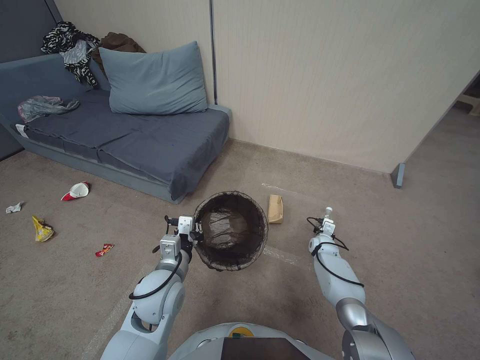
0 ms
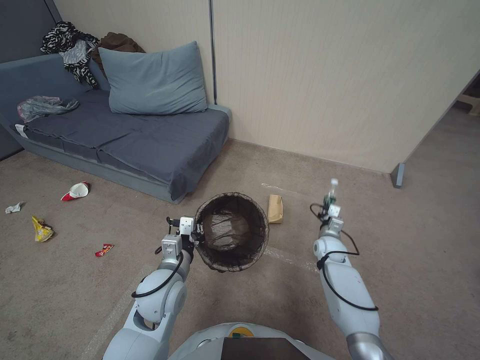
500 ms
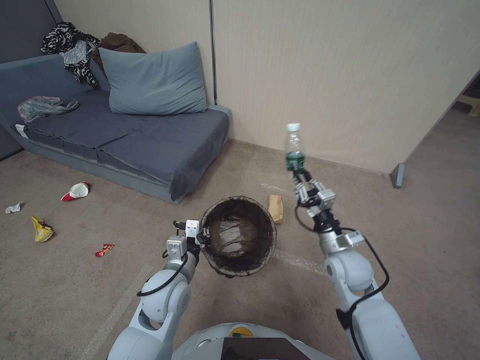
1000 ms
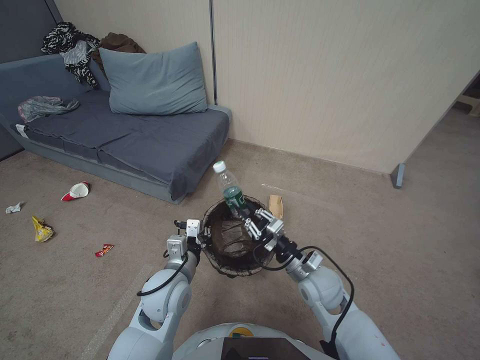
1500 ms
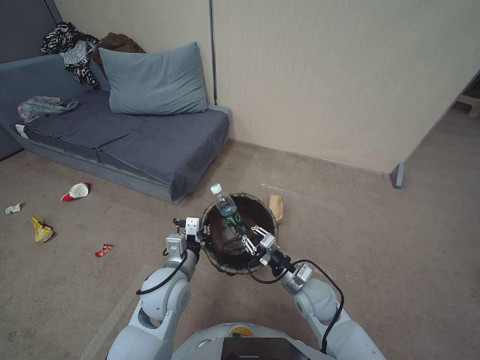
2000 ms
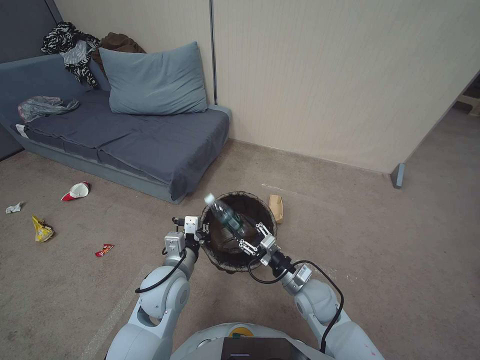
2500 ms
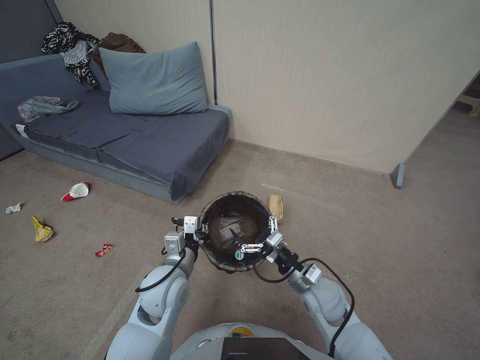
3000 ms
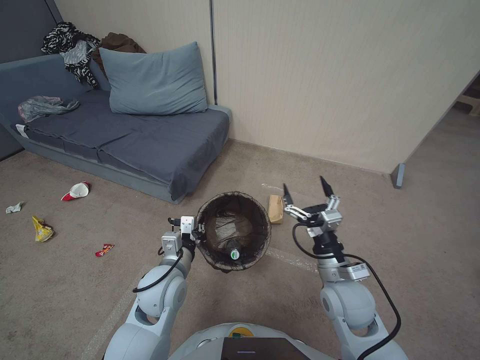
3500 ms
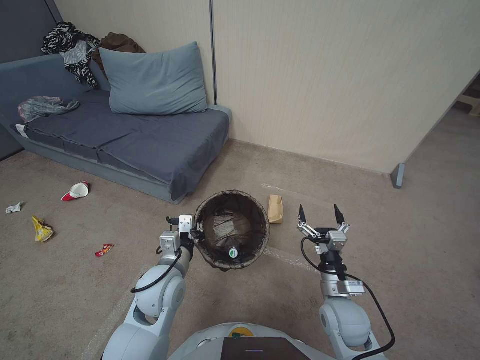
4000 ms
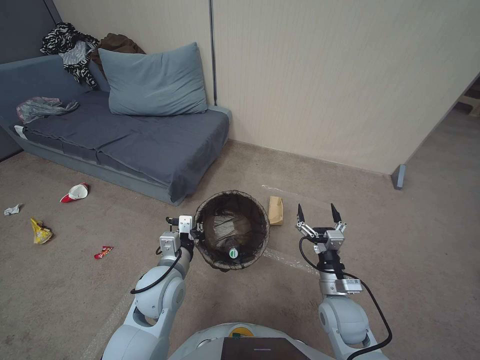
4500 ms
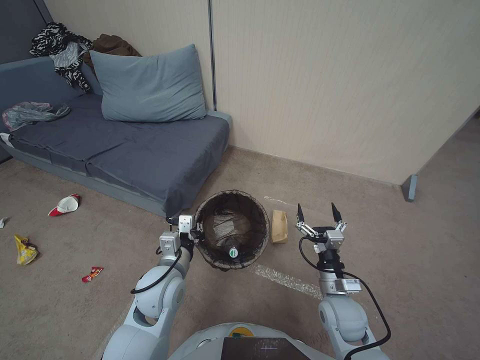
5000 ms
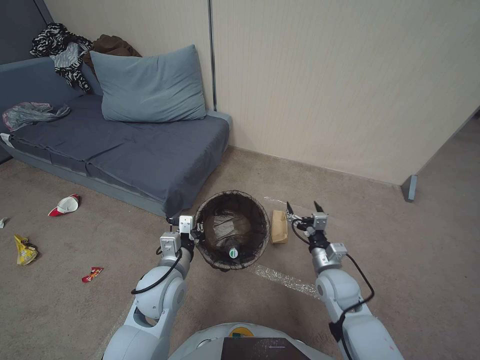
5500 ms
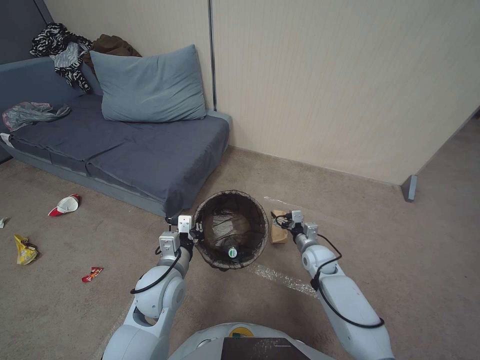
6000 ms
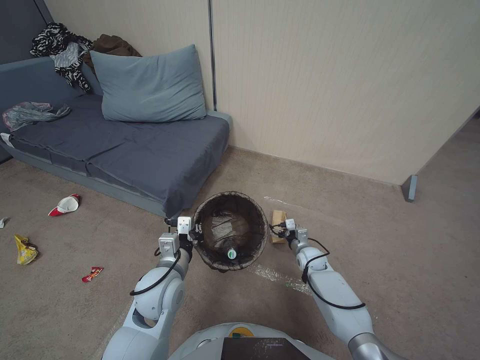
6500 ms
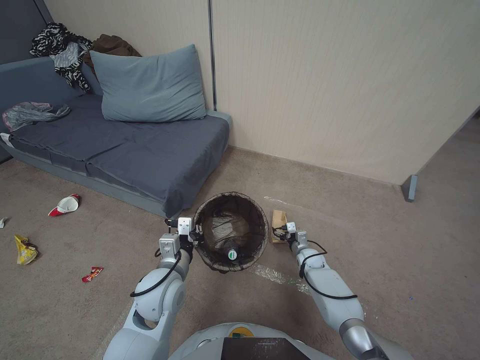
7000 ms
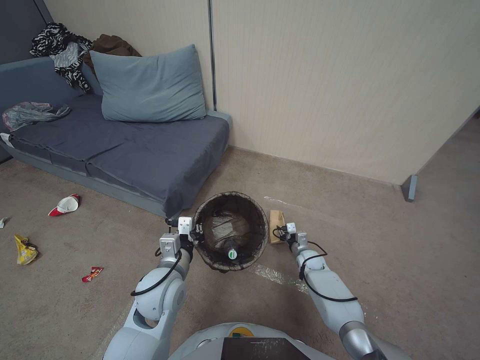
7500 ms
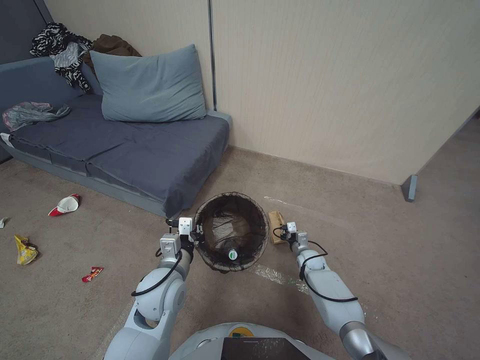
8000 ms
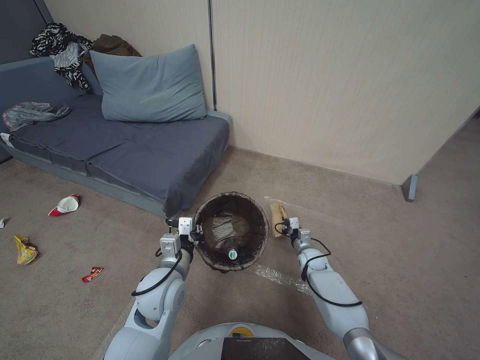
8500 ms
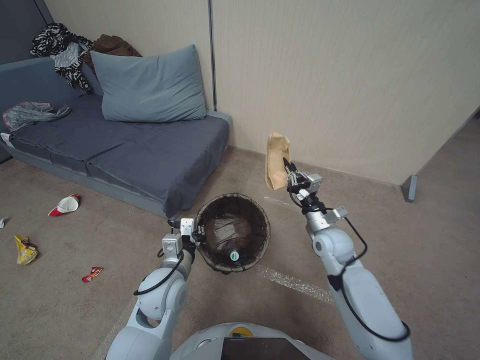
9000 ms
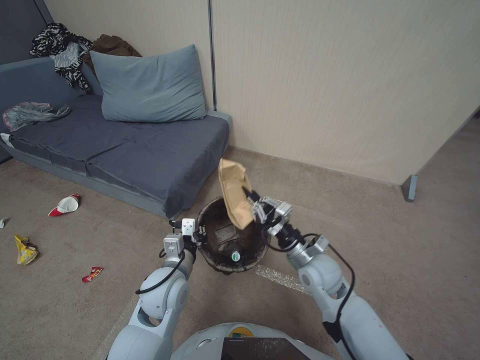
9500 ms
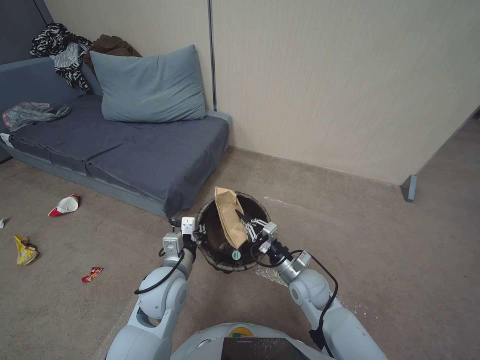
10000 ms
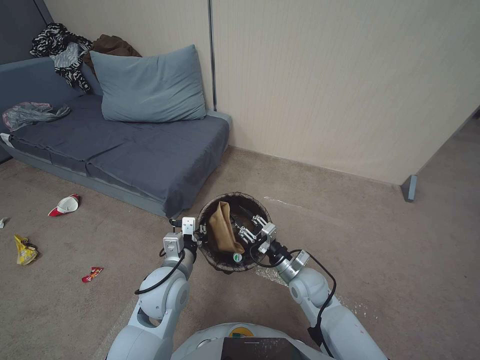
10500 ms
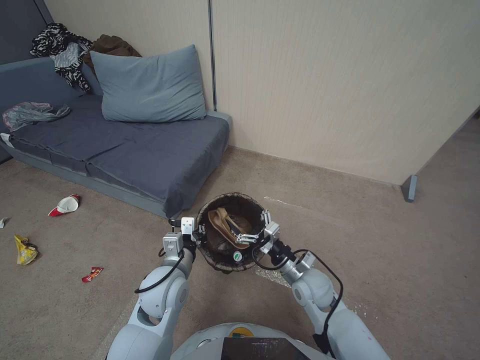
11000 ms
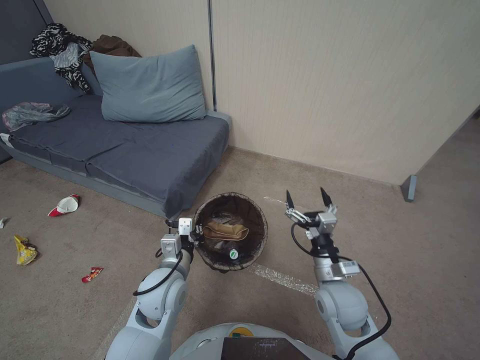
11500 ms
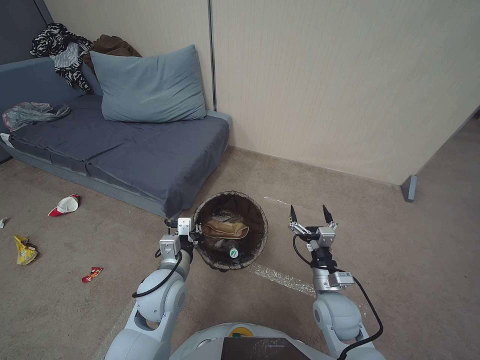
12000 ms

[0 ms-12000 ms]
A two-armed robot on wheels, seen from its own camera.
Task of the whole recording: Pick up the trash bin, then pick up the garbage from the floor and place it into the trash bin.
0 ms to 2000 ms: The right gripper shifts some 30 cm upward, backward and to the left.
2000 ms to 4000 ms: The right gripper is displaced backward by some 5 cm, and opens up.
4000 ms to 6000 ms: The right gripper heads forward and downward, covering approximately 15 cm.
6000 ms to 8000 ms: The right gripper goes approximately 15 cm downward and forward, and closes its fingers.
8000 ms to 10000 ms: The right gripper is displaced upward, backward and to the left by some 20 cm.
10000 ms to 12000 ms: The right gripper shifts some 5 cm backward, travels upward and back again, some 10 cm each way, and opens.

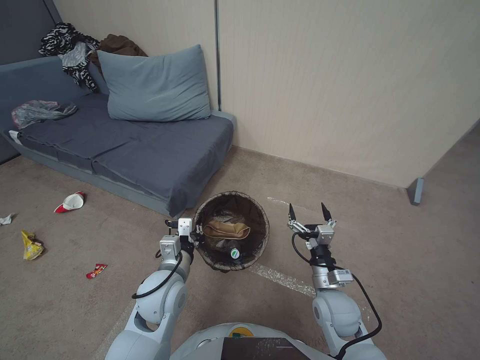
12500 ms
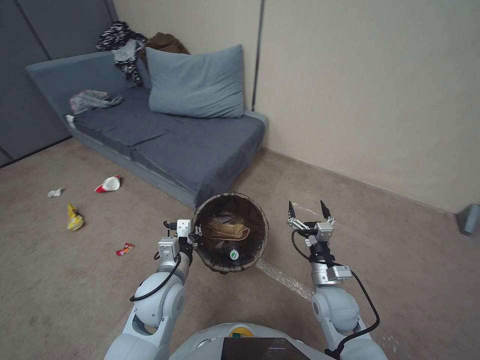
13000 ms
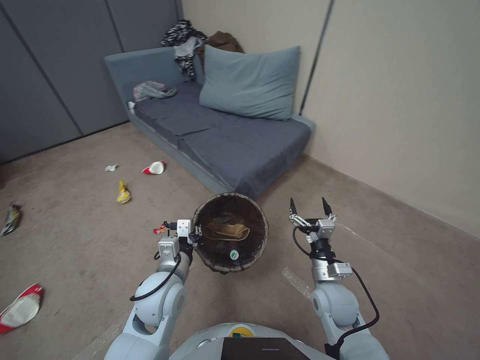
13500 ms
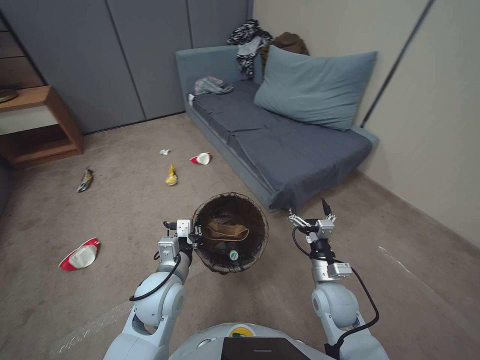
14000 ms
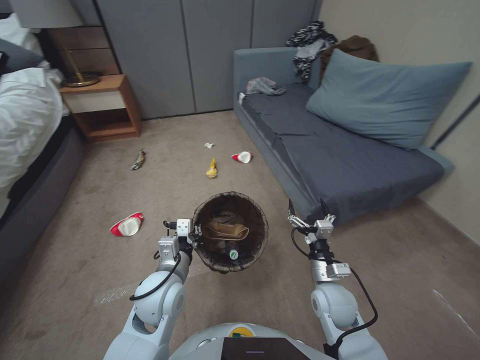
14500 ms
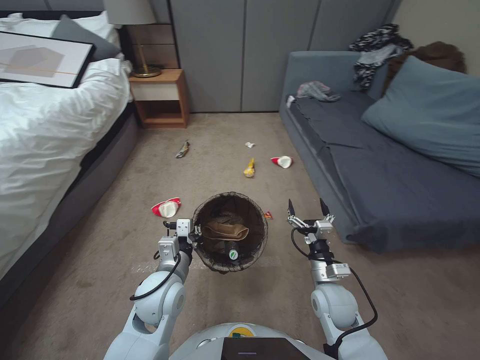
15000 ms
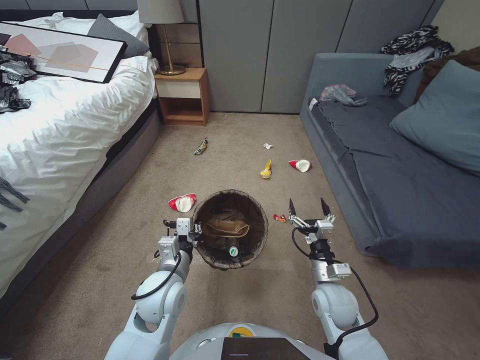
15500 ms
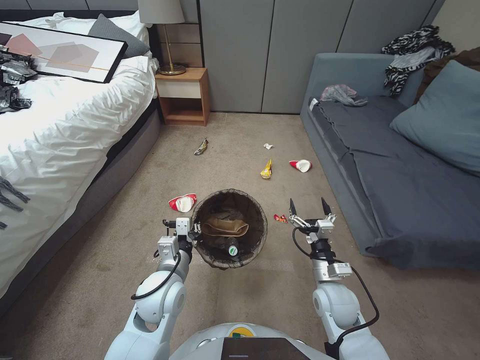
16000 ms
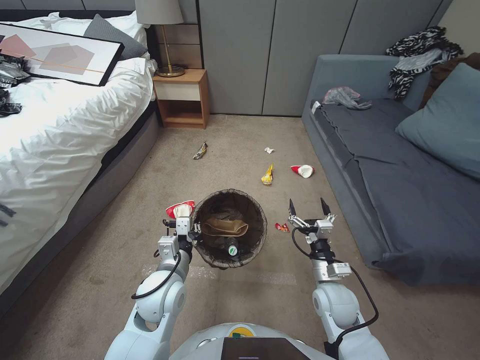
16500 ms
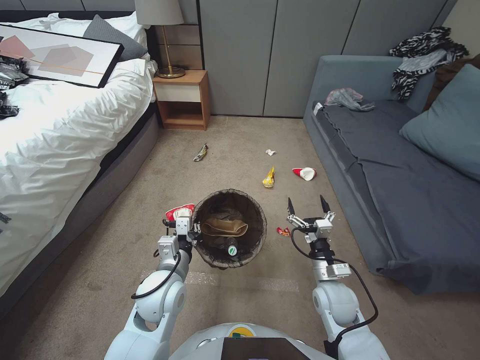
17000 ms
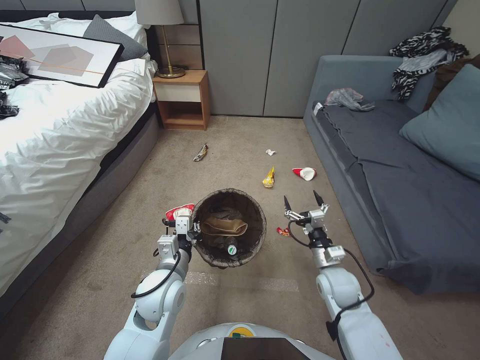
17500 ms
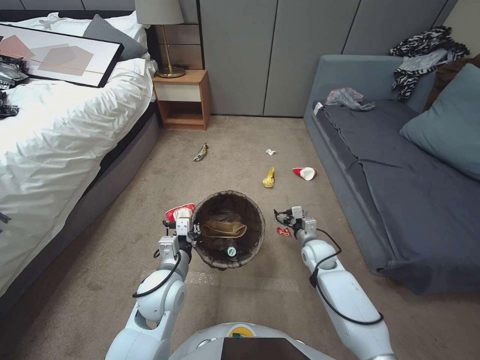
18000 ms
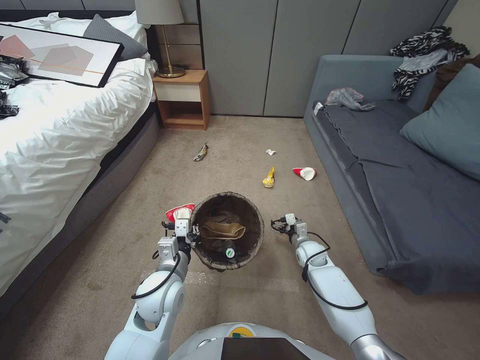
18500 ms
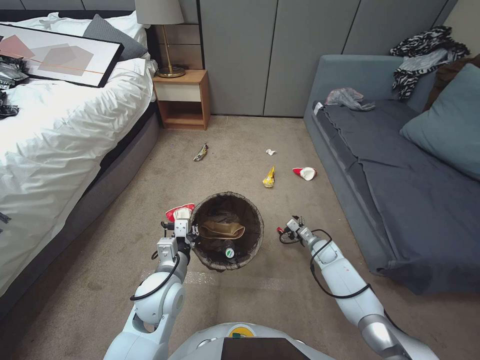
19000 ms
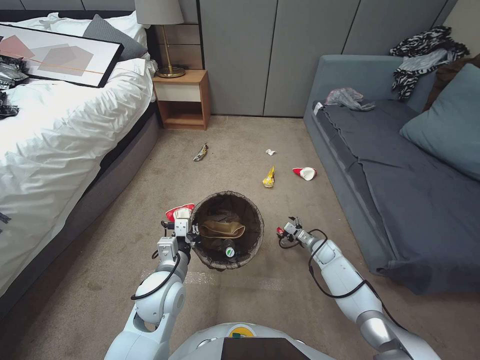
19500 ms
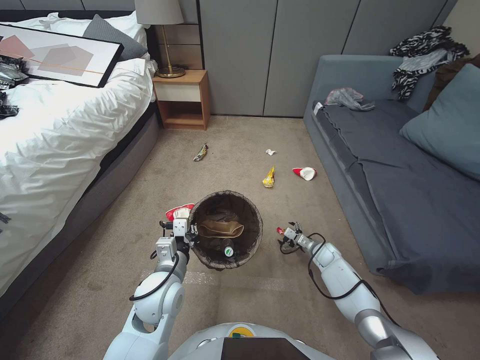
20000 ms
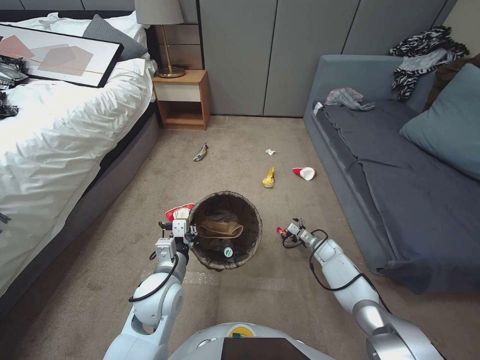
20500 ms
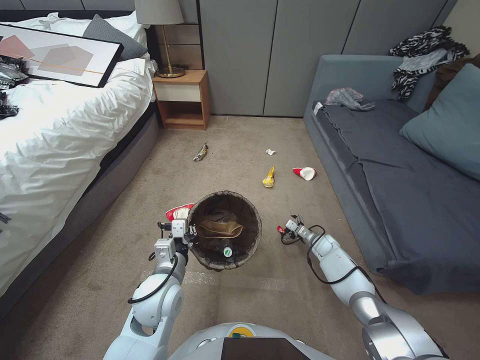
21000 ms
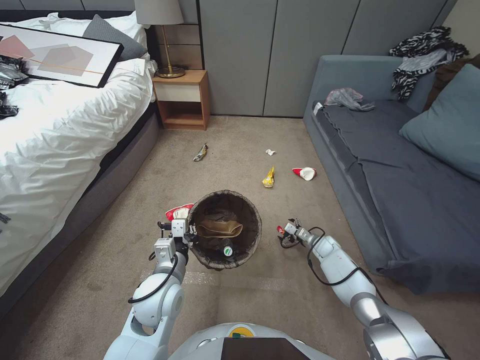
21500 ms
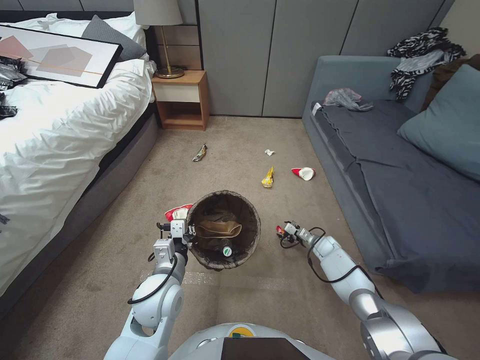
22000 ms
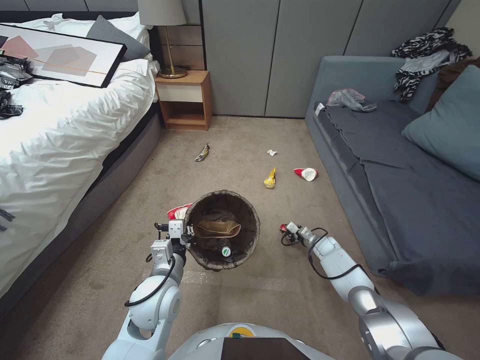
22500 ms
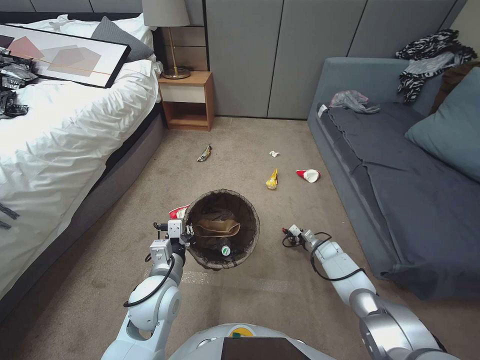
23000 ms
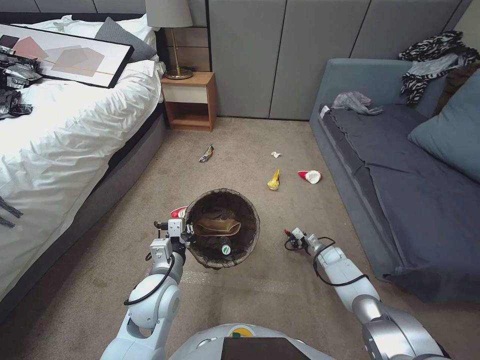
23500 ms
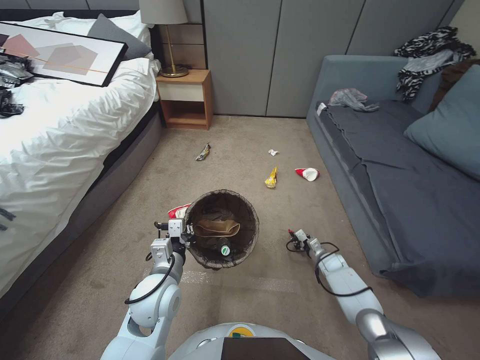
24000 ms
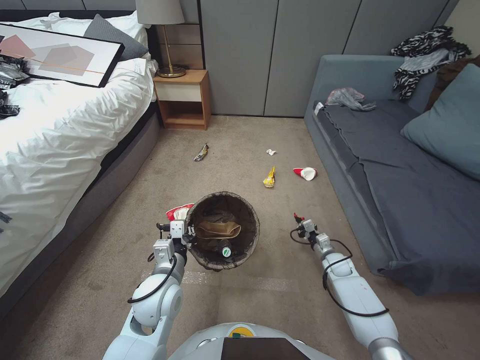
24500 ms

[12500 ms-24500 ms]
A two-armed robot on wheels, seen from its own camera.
Task of the whole recording: Pick up the trash bin, then pick up the garbage from the floor and place it into the trash bin.
16500 ms to 18500 ms: The right gripper moves forward and downward, some 20 cm.
18500 ms to 20500 ms: The right gripper goes roughly 10 cm to the right and downward.
20500 ms to 22500 ms: The right gripper closes.
22500 ms to 24500 ms: The right gripper is displaced backward by approximately 5 cm, and closes up.

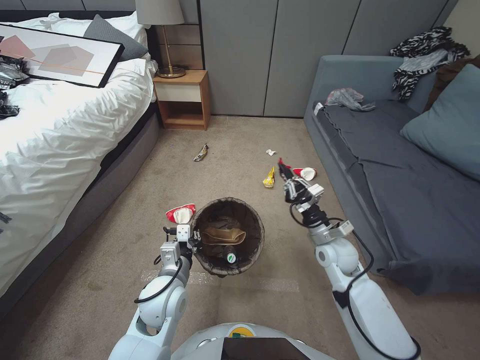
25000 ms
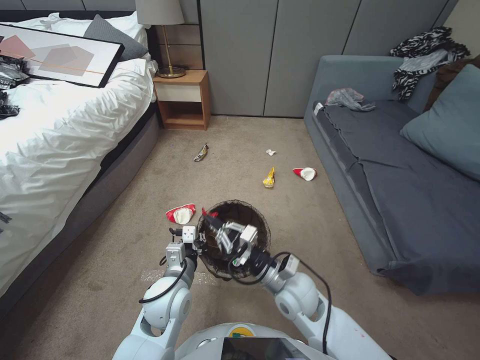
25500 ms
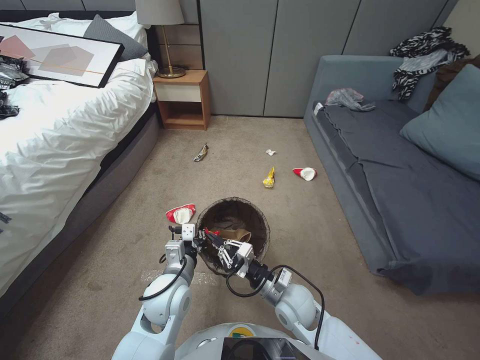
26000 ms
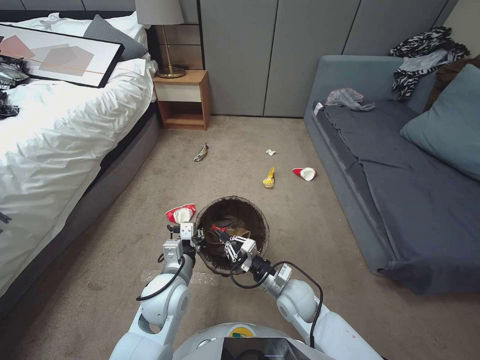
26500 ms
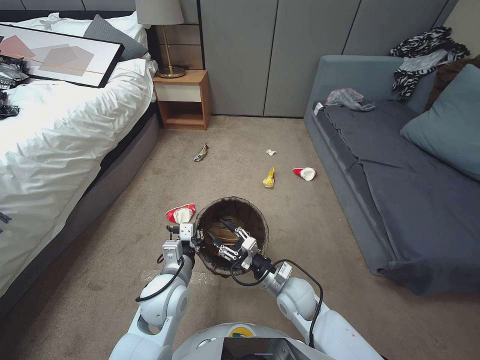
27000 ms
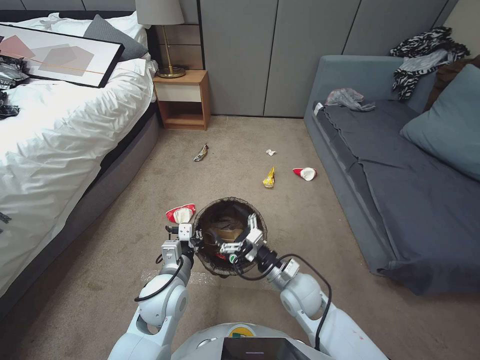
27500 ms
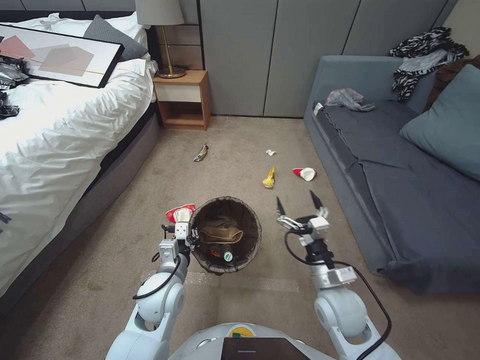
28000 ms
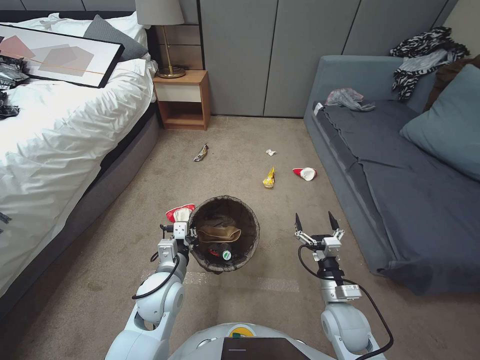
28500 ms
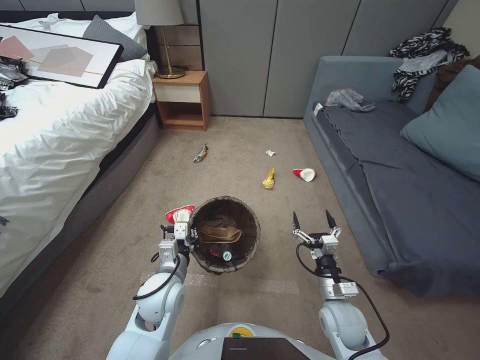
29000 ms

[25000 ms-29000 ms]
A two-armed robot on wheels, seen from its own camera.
Task of the whole recording: Pick up the trash bin, then pick up the garbage from the floor and place it into the trash bin.
25000 ms to 27000 ms: The right gripper travels to the left and backward by approximately 25 cm, and opens its fingers.
27000 ms to 29000 ms: The right gripper shifts approximately 10 cm to the right and backward, and opens its fingers.
